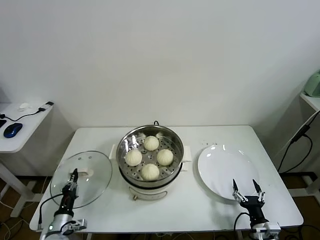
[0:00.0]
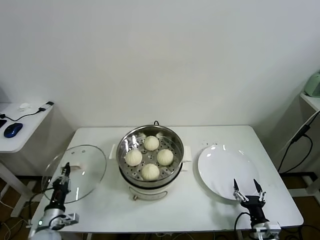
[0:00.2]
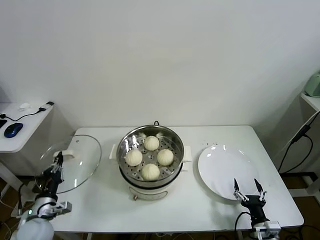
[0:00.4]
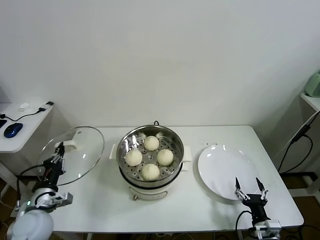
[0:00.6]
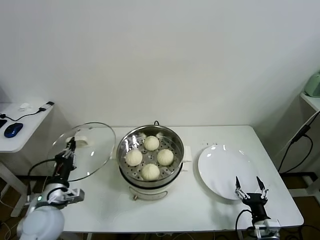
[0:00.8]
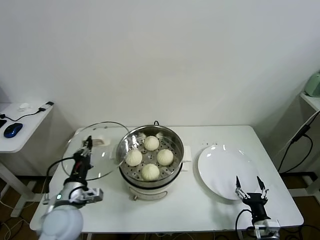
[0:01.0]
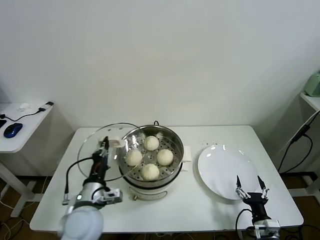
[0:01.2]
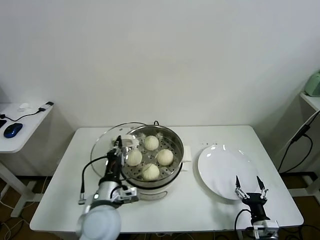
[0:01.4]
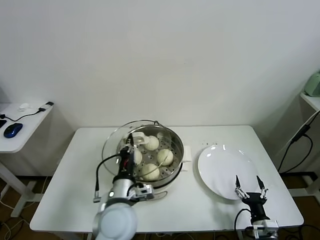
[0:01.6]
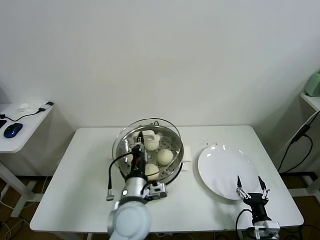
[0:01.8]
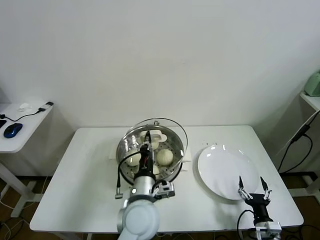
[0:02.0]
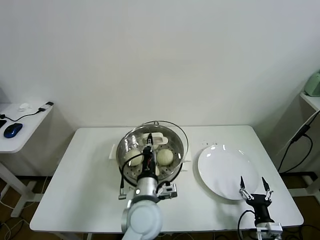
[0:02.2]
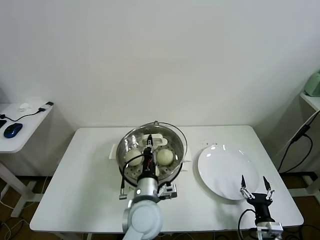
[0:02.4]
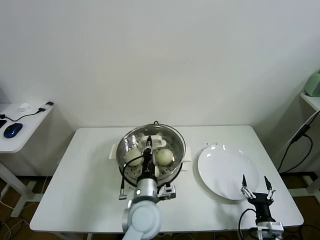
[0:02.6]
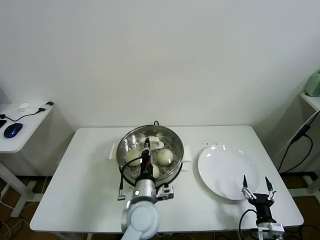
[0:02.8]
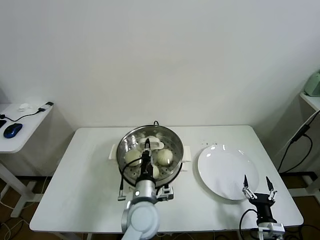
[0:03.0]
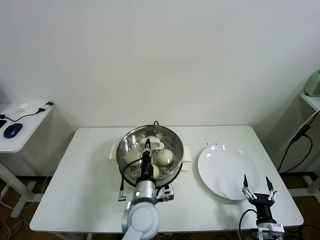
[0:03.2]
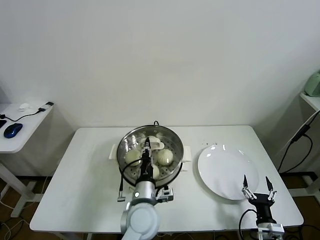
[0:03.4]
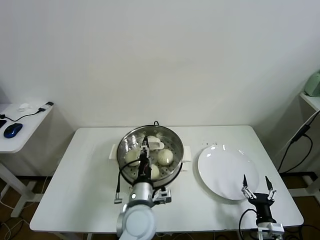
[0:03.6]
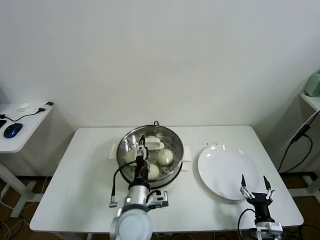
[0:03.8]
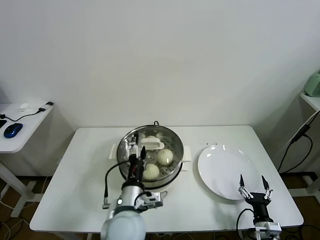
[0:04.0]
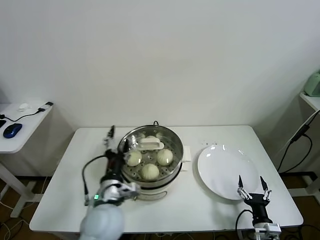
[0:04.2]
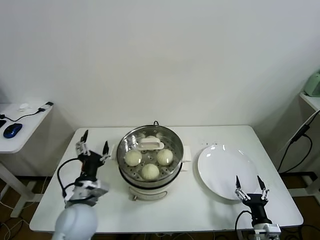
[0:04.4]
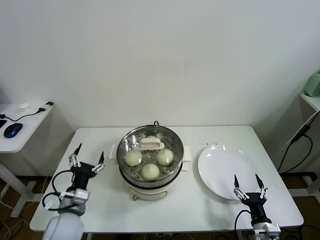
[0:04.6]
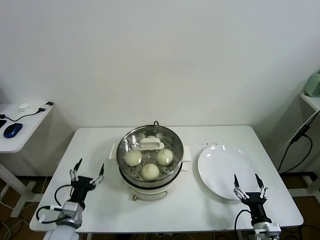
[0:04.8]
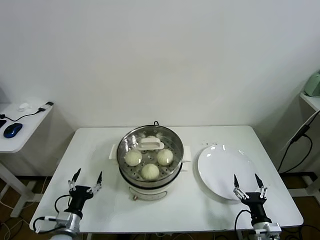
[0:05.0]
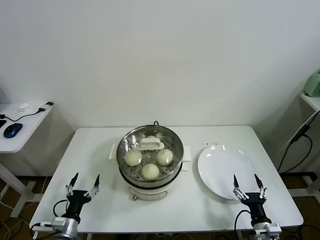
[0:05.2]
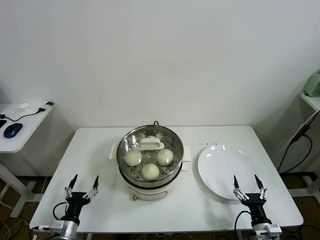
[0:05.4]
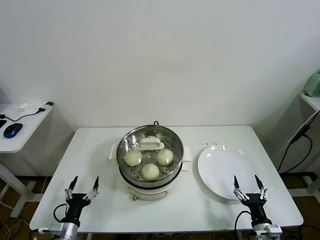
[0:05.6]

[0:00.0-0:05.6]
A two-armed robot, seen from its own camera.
Task of the whole recording: take steamed baozi put them in steamer.
Step, 0:00.0 to 0:03.8: Place the pot lid on the steamer with left gripper.
0:00.0 to 0:01.4: The left gripper shifts some 30 cm upward and to the right.
0:01.4 to 0:02.8: The left gripper moves to the right, about 10 cm.
0:02.8 to 0:04.2: The left gripper goes some 10 cm to the left, and opens its fingers.
0:04.2 to 0:05.6: The left gripper heads to the left and downward, covering about 25 cm.

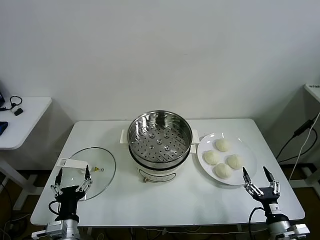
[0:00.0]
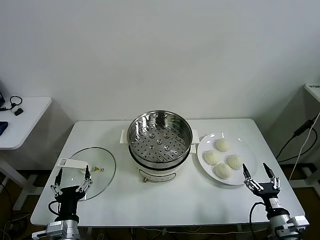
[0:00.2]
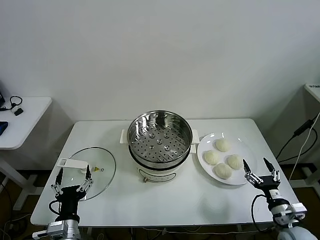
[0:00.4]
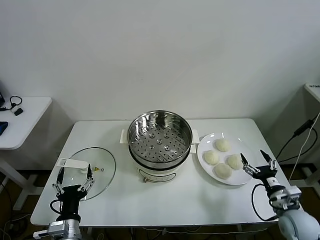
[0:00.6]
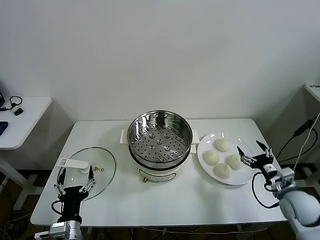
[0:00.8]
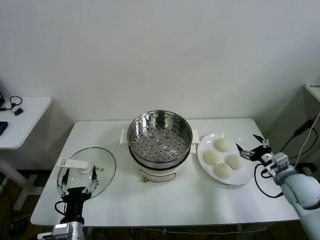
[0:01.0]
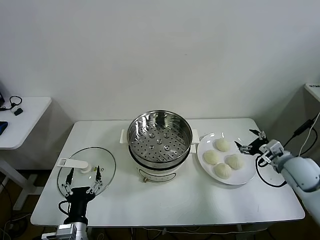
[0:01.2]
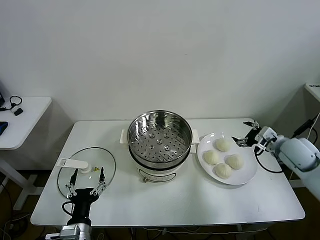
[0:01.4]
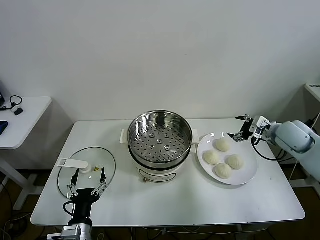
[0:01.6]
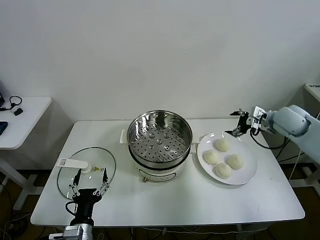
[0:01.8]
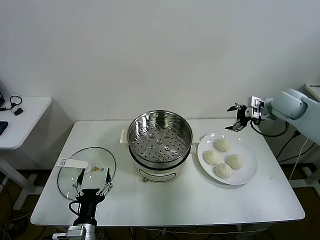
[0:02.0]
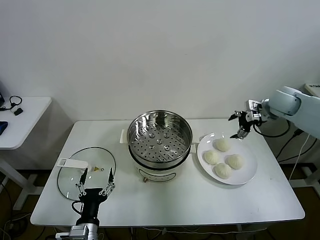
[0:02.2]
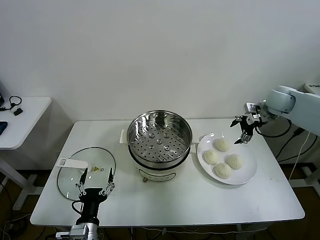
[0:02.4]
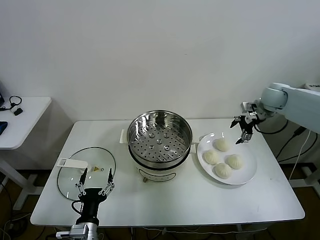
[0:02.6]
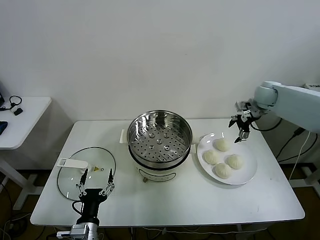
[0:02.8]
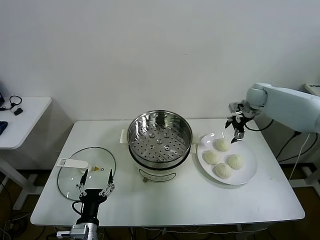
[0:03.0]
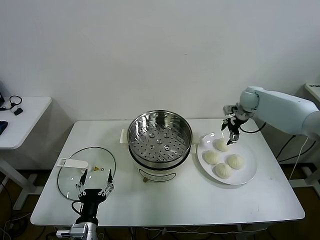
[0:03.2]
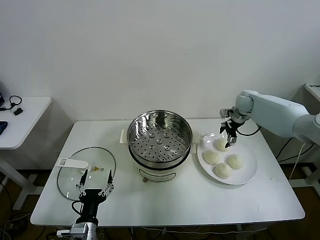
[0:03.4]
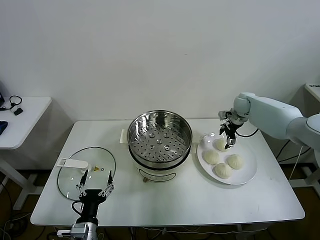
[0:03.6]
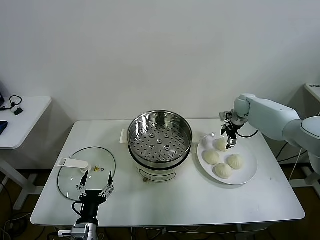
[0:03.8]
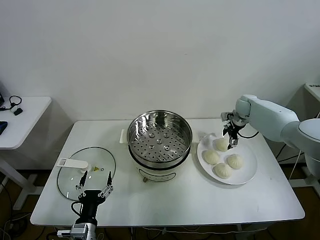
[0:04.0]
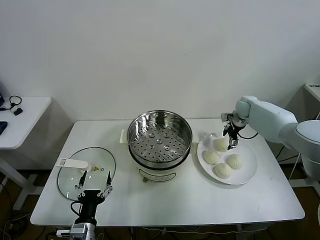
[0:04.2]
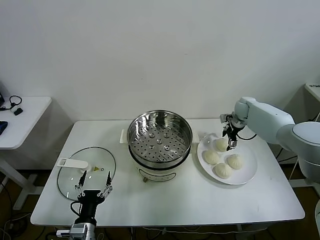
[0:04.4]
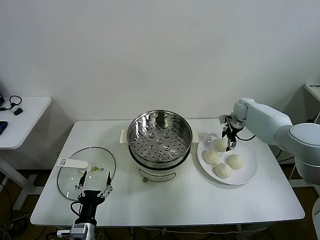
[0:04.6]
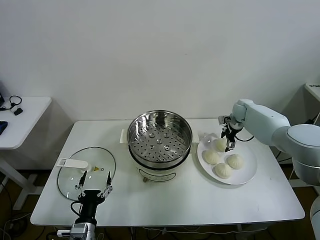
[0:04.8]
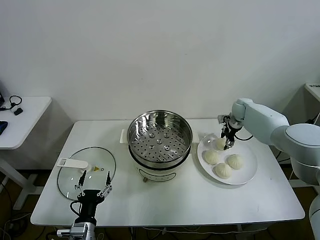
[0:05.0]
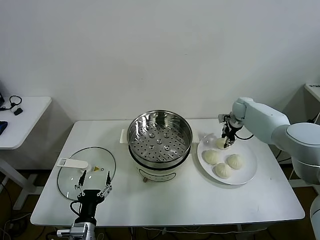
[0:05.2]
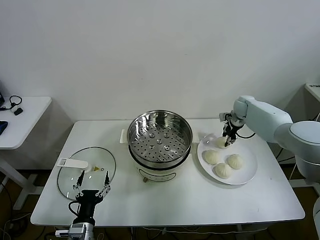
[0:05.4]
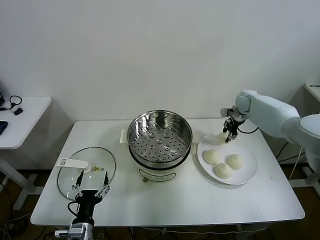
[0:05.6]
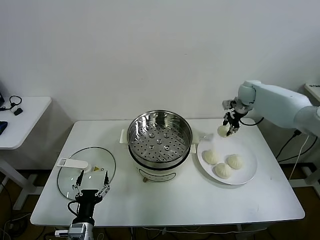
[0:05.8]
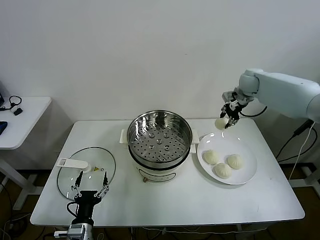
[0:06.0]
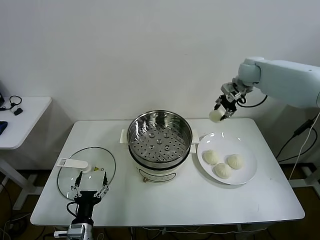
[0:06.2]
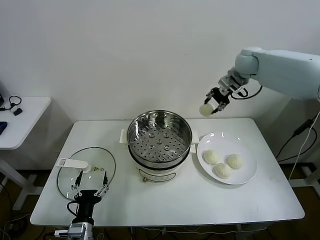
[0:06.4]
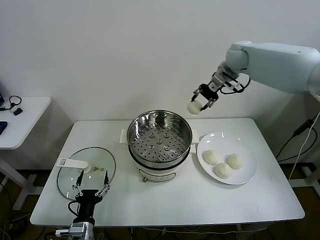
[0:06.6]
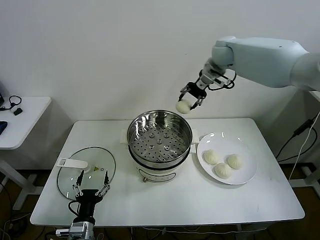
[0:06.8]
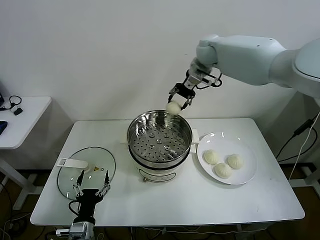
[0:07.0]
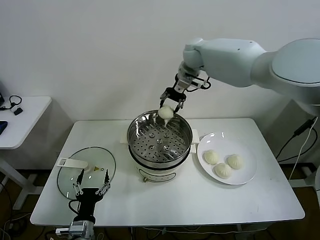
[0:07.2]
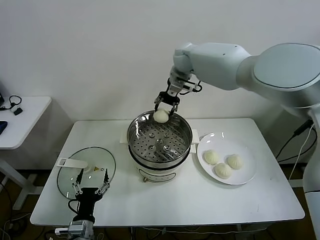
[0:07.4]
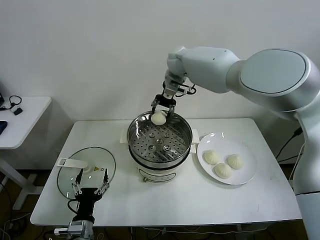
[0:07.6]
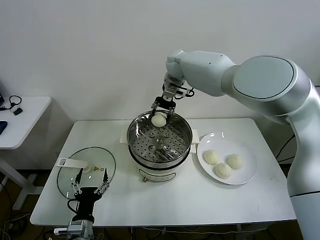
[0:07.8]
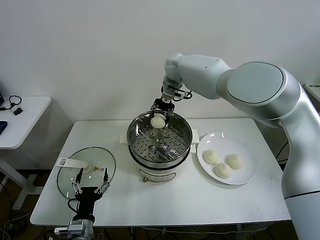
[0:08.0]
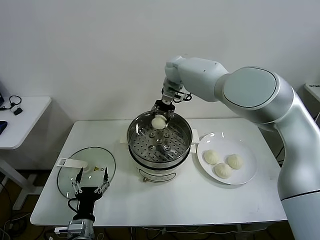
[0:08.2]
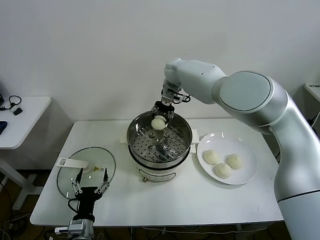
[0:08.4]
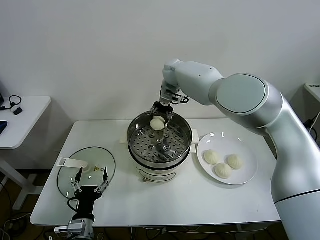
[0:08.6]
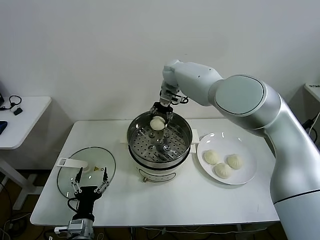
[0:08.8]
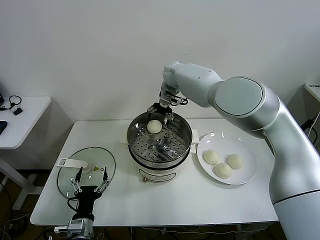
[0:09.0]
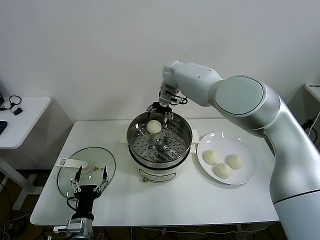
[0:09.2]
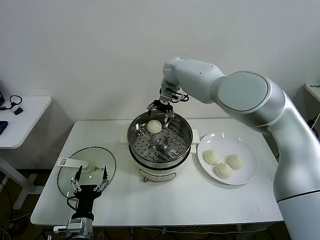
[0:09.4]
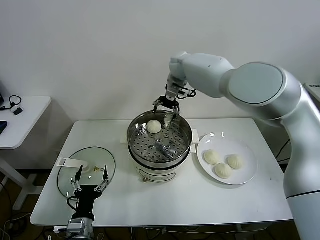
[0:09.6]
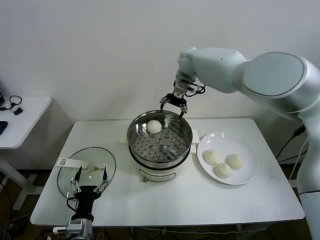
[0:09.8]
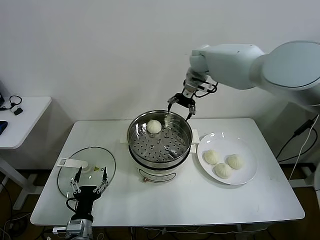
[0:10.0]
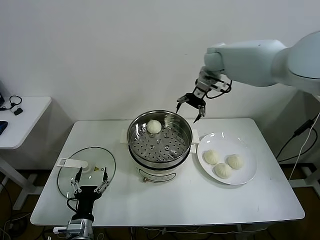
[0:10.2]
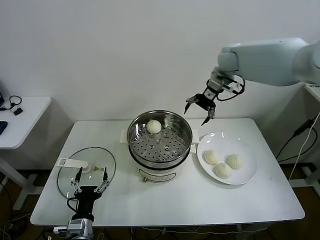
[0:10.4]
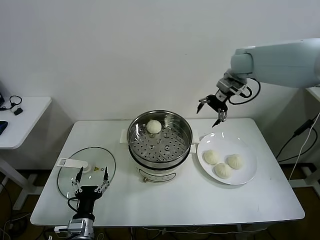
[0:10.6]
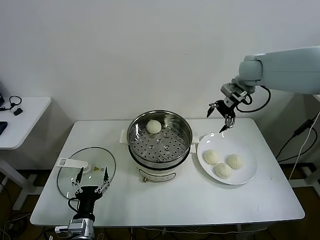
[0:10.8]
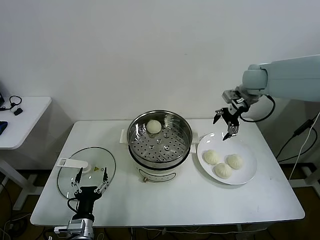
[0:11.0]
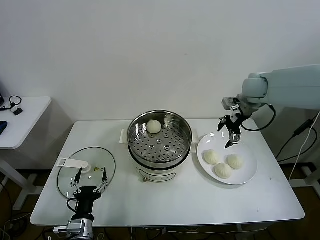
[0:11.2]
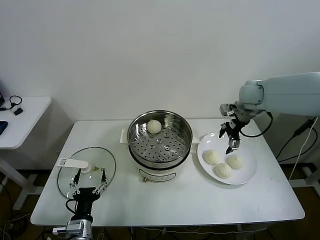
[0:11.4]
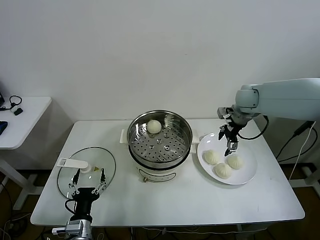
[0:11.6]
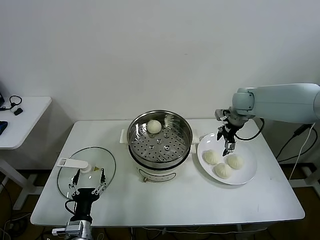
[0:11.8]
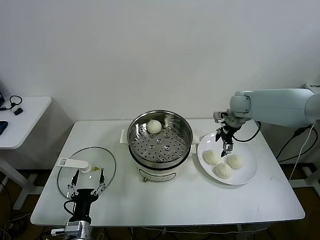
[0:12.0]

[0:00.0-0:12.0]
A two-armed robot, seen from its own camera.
Task of the whole recording: take steamed baozi put them in steamer.
Step, 0:00.0 to 0:05.2: Grasp the baozi in the plate with right gripper.
Step, 0:05.4 to 0:09.0: Place the baozi on the steamer with right gripper.
0:01.6 to 0:03.0: The right gripper goes about 15 cm forward.
0:03.0 to 0:04.4: The right gripper heads downward, covering about 10 cm.
0:04.4 to 0:06.0: The right gripper goes some 15 cm upward, and closes.
0:06.0 to 0:07.6: The right gripper moves to the left, approximately 25 cm.
0:07.6 to 0:09.0: The right gripper heads downward, covering about 5 cm, and opens its fingers.
0:09.0 to 0:10.4: The right gripper shifts approximately 20 cm to the right and upward.
0:10.4 to 0:12.0: The right gripper travels downward by approximately 15 cm.

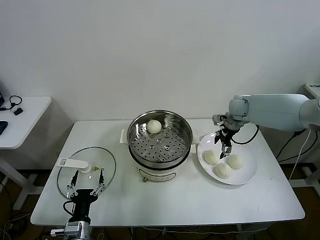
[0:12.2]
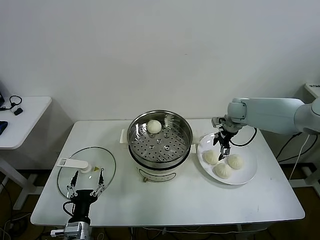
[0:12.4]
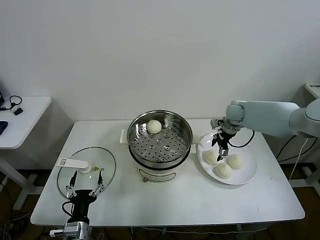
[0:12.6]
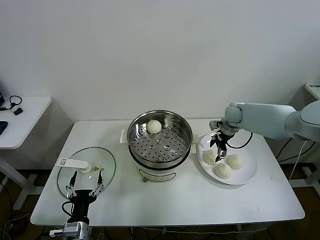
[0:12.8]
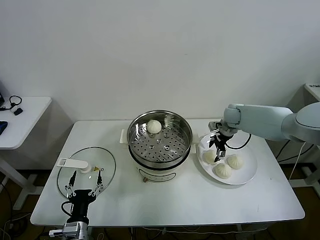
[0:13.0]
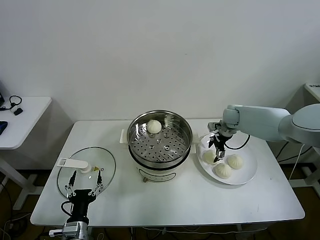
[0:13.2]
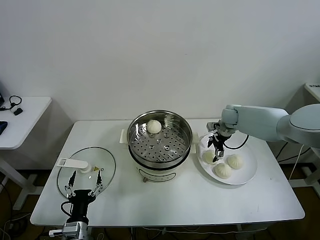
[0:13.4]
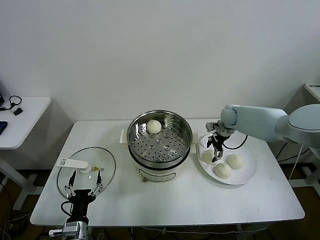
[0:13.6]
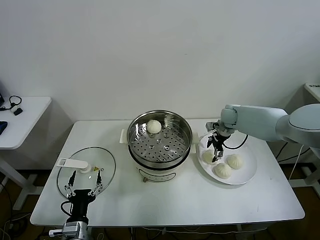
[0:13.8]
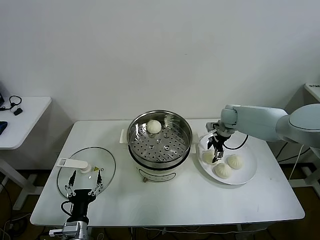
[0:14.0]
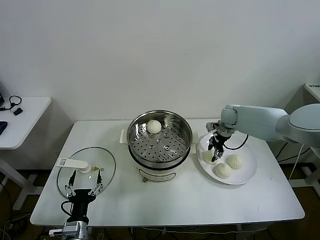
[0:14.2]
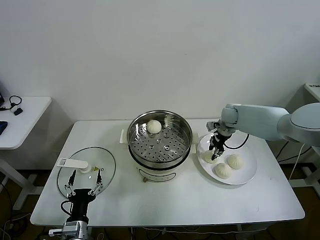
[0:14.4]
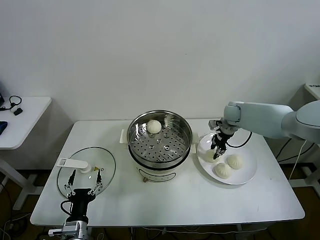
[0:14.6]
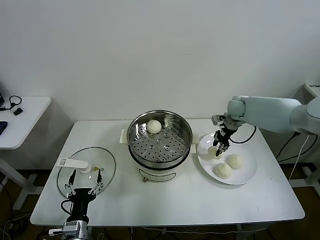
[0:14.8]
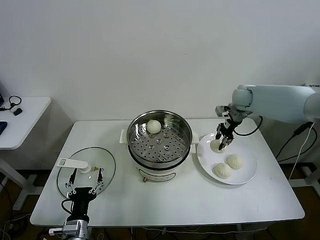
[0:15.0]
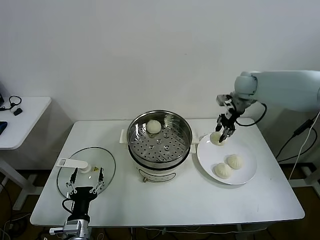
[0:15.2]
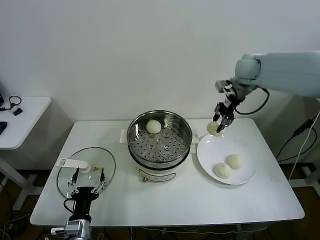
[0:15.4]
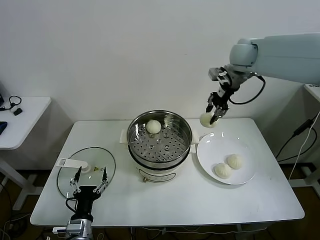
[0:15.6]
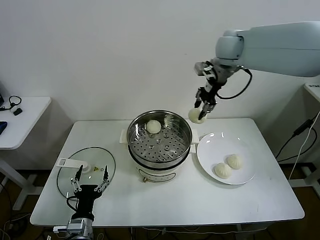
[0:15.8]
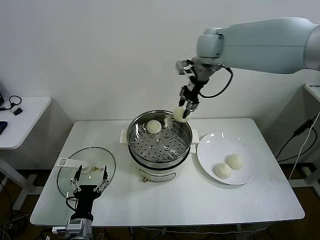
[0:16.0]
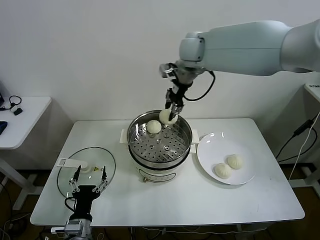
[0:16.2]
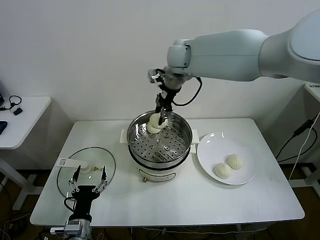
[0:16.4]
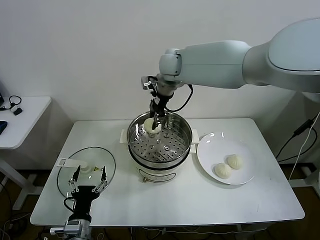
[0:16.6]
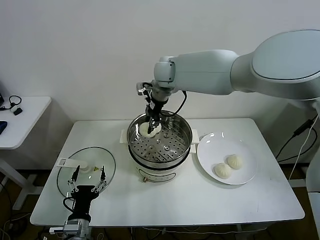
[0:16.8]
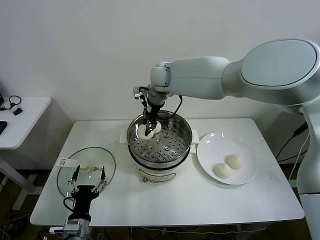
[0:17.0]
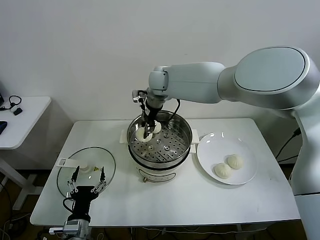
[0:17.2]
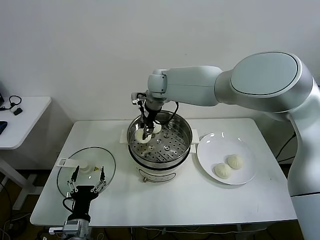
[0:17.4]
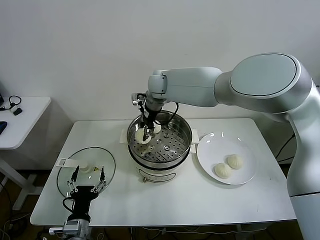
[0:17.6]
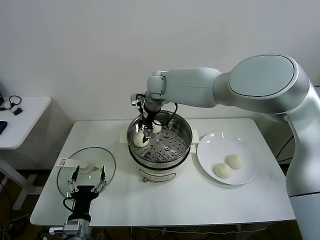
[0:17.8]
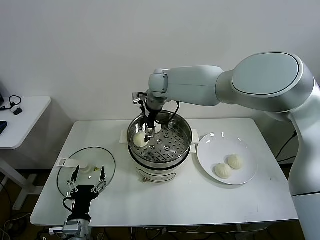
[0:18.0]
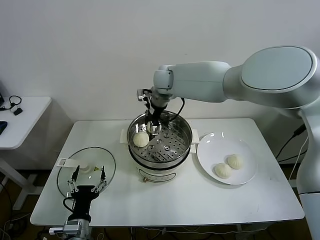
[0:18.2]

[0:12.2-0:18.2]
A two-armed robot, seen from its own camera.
Task of the whole recording: take steamed baozi put them in steamer.
Step, 0:12.2 to 0:14.2: Grasp the baozi in the plate with right gripper.
Step, 0:14.4 to 0:17.8: Place the baozi on the steamer with right gripper.
0:12.2 to 0:13.8: The right gripper shifts some 5 cm downward.
0:13.8 to 0:15.2: The right gripper travels upward by roughly 20 cm, and closes.
0:15.2 to 0:16.6: The right gripper shifts some 25 cm to the left.
0:16.6 to 0:18.2: The right gripper shifts some 5 cm downward, and opens its fingers.
